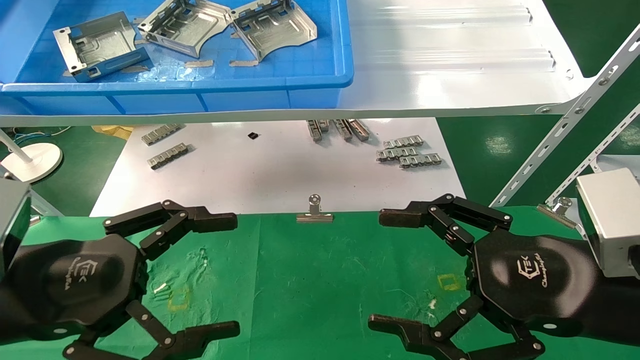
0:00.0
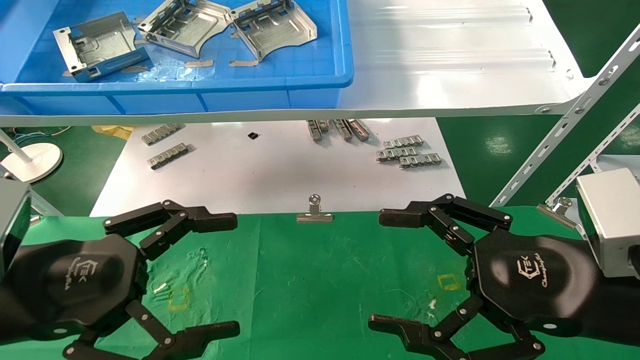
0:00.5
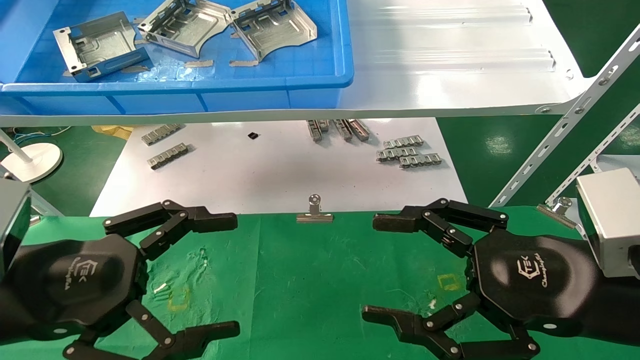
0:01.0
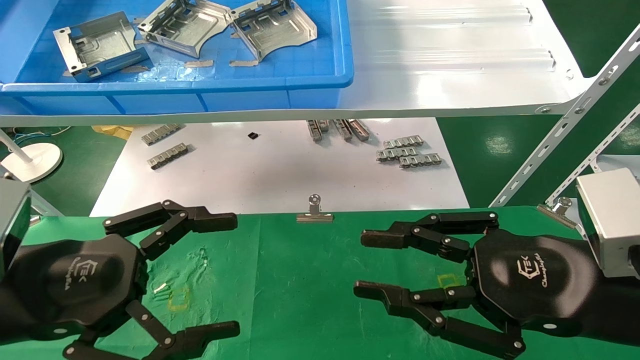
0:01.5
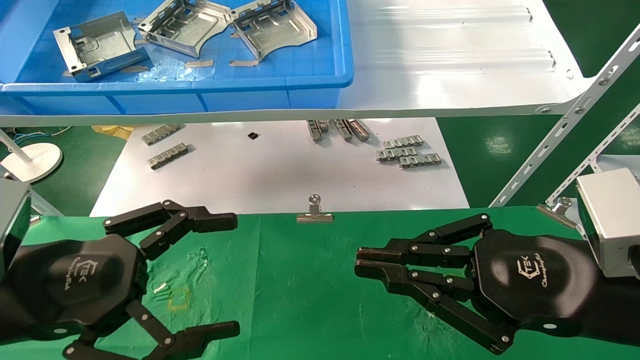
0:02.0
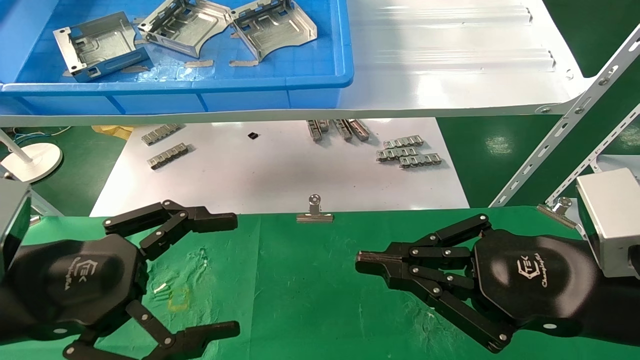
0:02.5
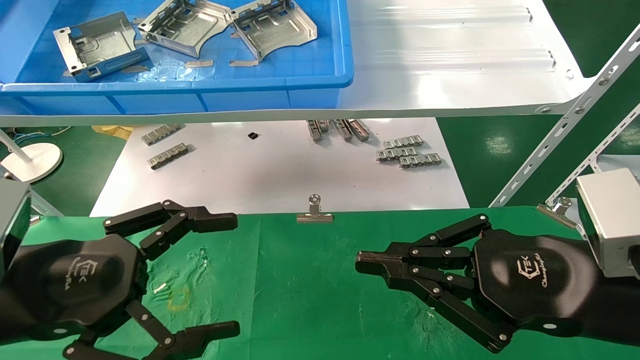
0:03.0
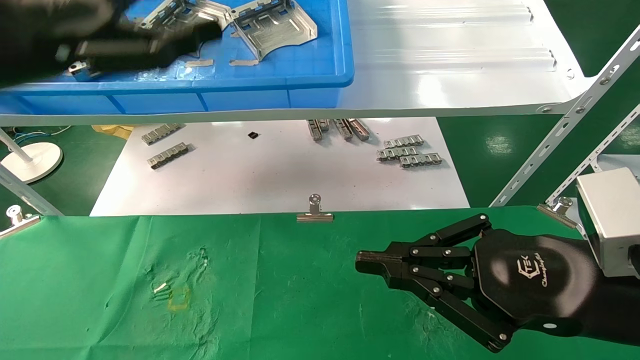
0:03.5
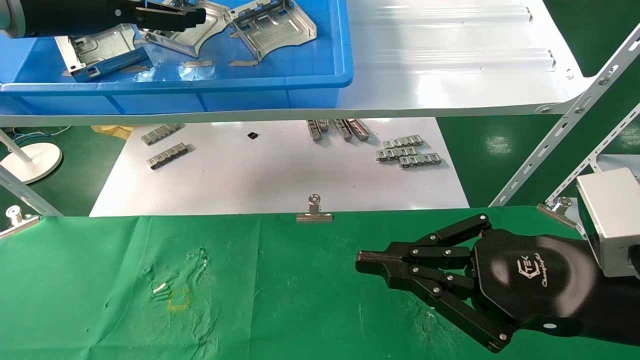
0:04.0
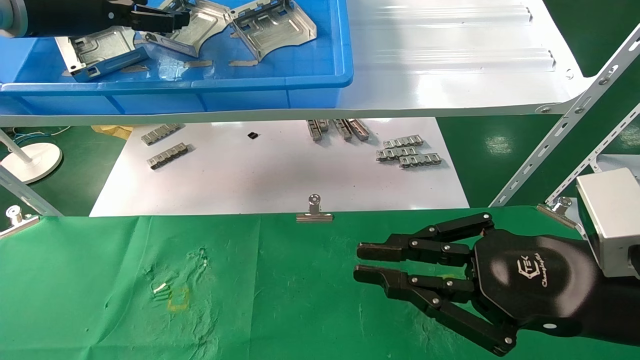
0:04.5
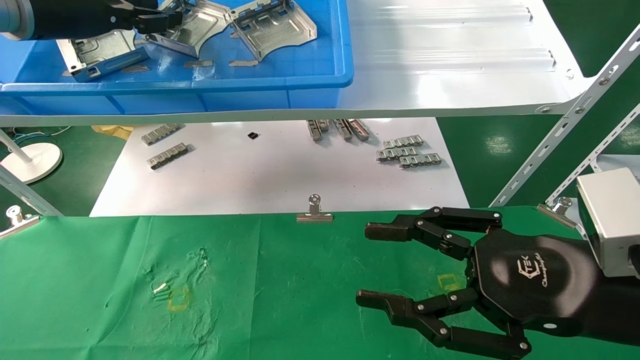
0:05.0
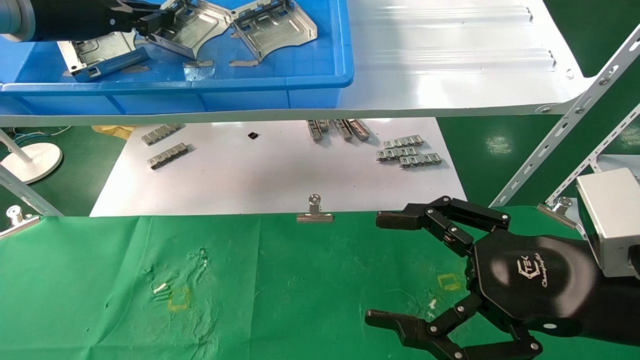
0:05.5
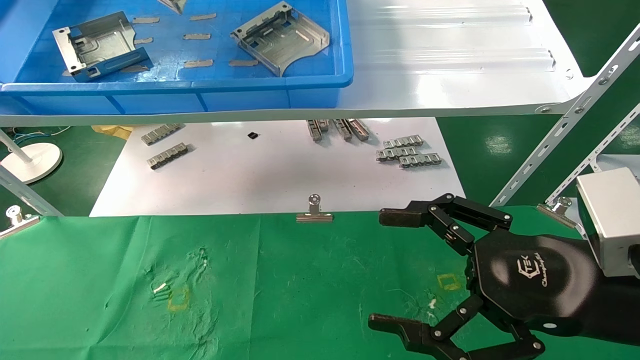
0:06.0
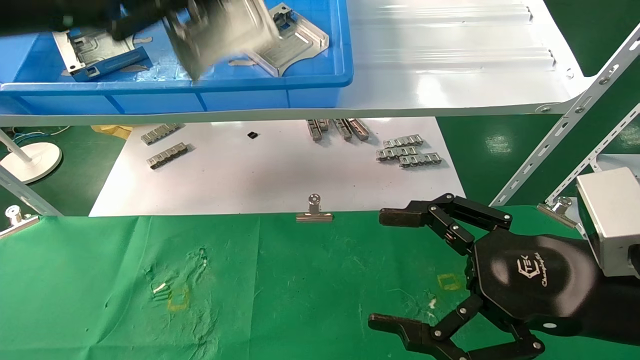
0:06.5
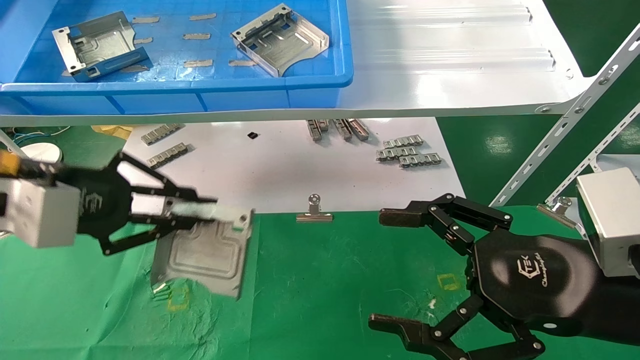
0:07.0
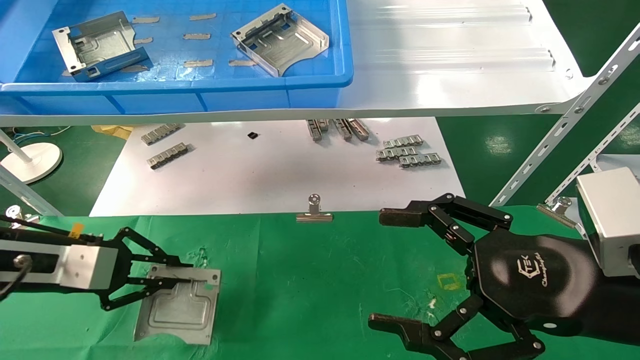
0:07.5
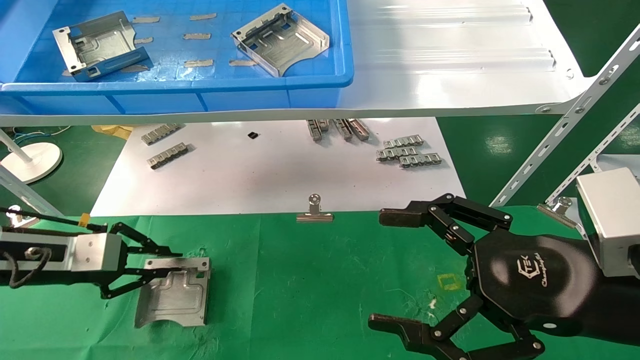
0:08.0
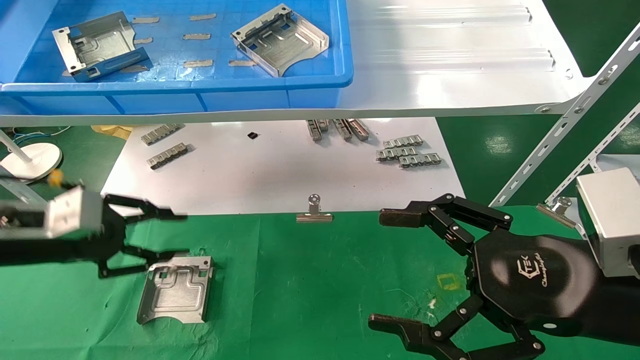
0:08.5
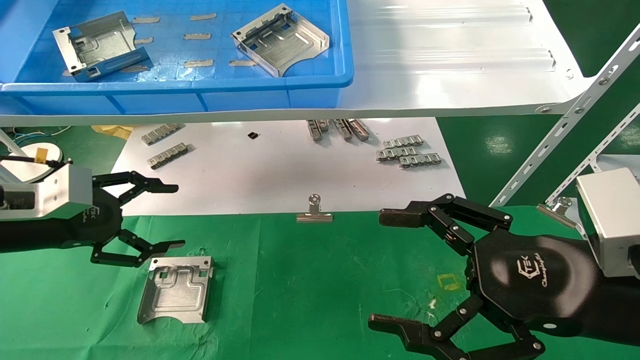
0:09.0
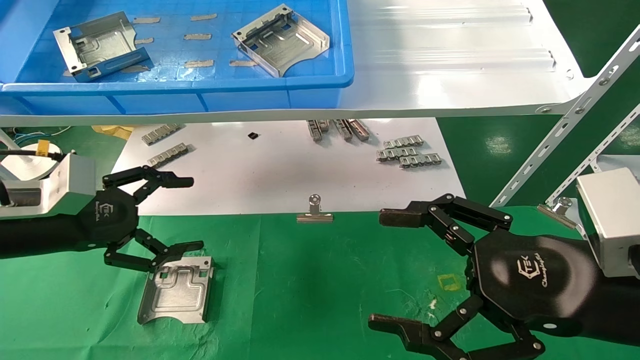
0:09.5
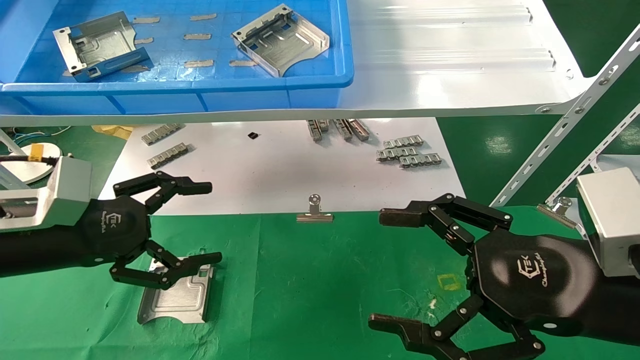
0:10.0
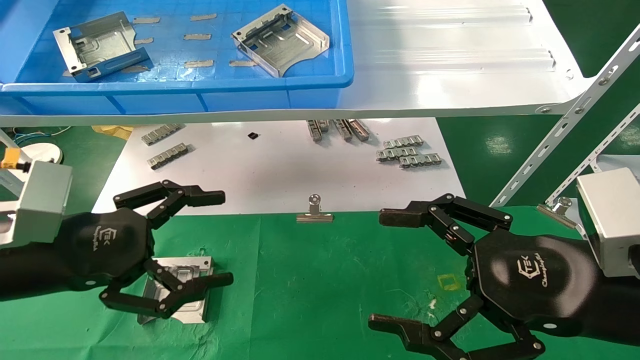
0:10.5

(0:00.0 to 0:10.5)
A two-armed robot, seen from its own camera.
Task of the whole recording: use the mechanical arm to pick up the parts and place them on the table.
Step, 0:01.0 - 0:05.5: Pick up the hard drive bracket from the feeding area.
Step, 0:06.0 - 0:08.5: Place the hard drive bracket into the box.
0:00.0 - 0:02.0: The right gripper closes its fingers.
0:02.0 - 0:04.0: The left gripper heads upward and forward, covering approximately 30 cm.
0:04.0 - 0:06.5: The left gripper moves backward, about 10 cm, and closes up. The right gripper opens.
0:06.5 - 0:08.5: The left gripper heads downward, covering approximately 20 cm.
0:08.5 - 0:10.5: The left gripper is displaced backward and to the right by approximately 10 cm, and opens its fingers.

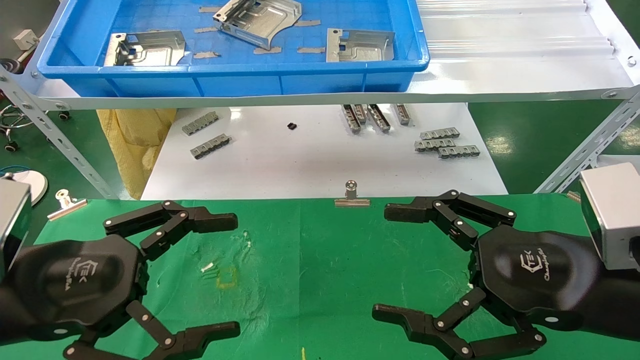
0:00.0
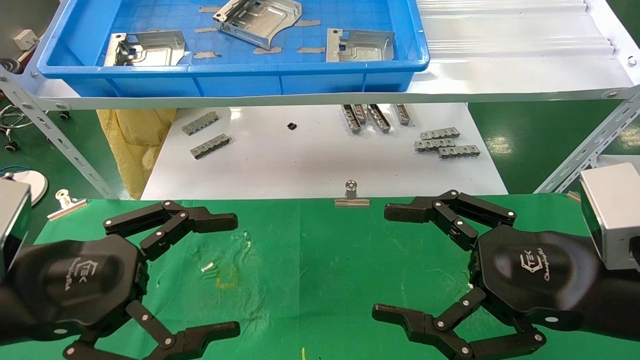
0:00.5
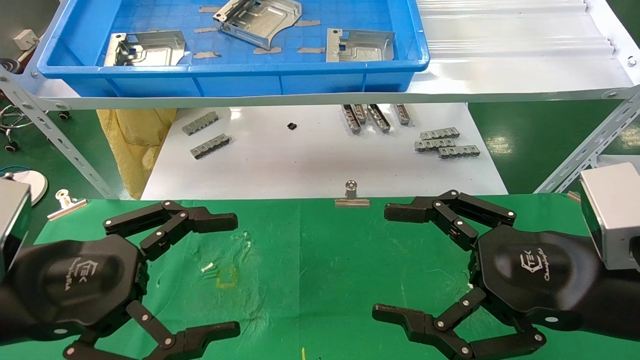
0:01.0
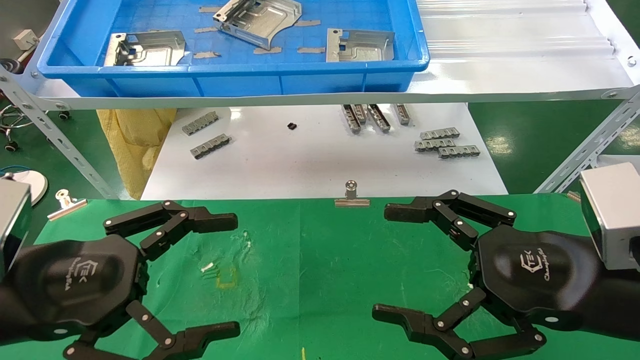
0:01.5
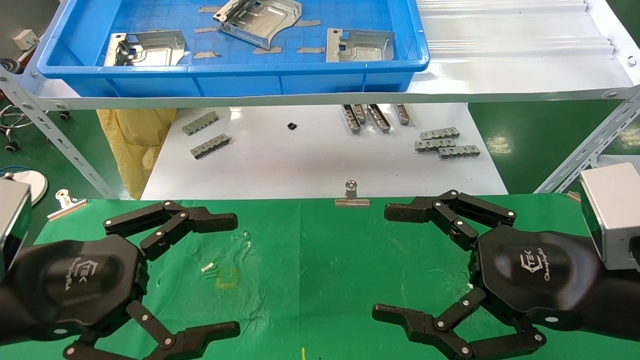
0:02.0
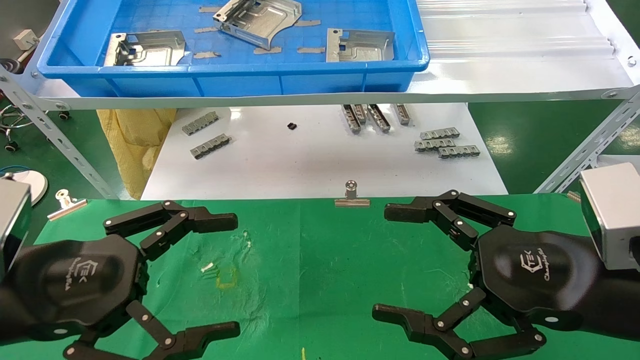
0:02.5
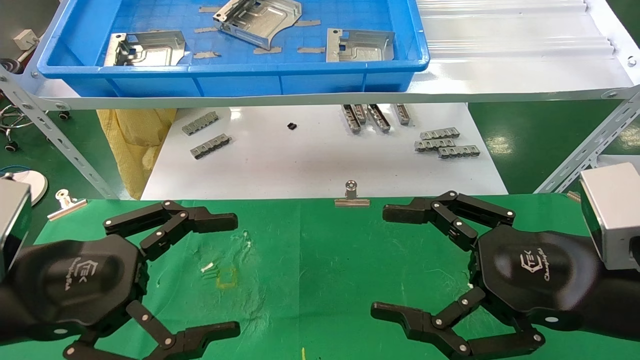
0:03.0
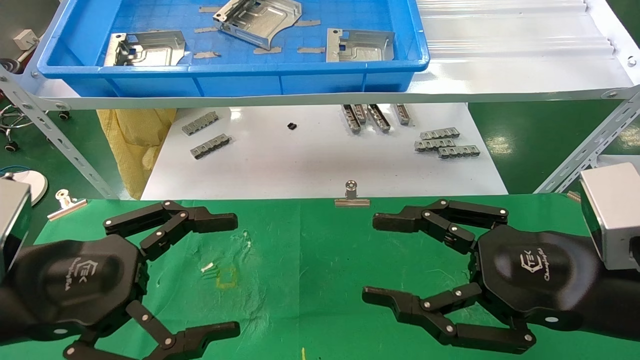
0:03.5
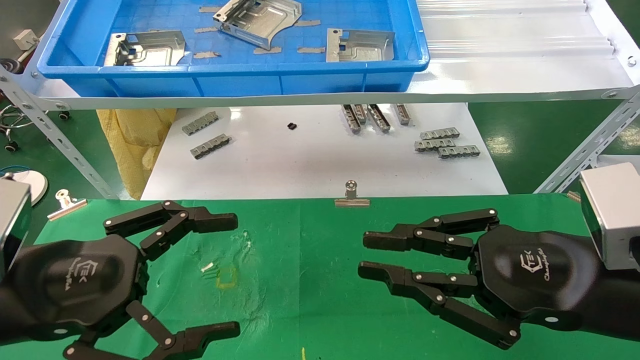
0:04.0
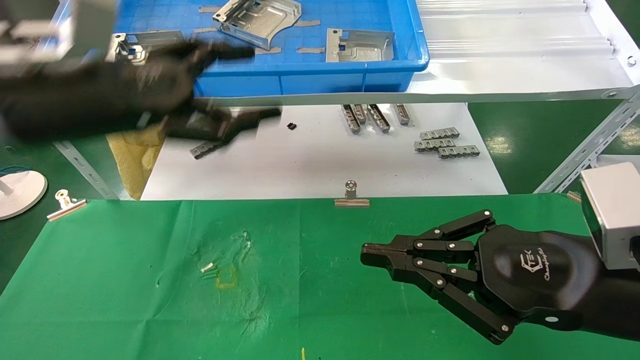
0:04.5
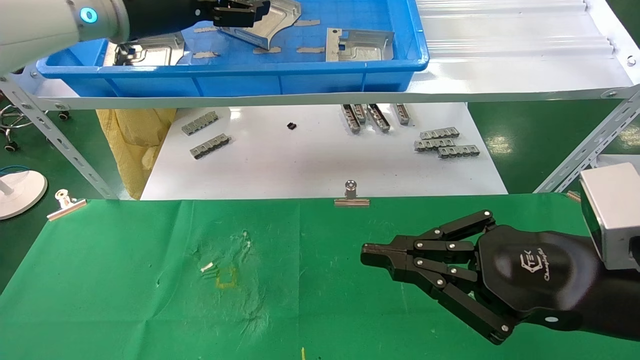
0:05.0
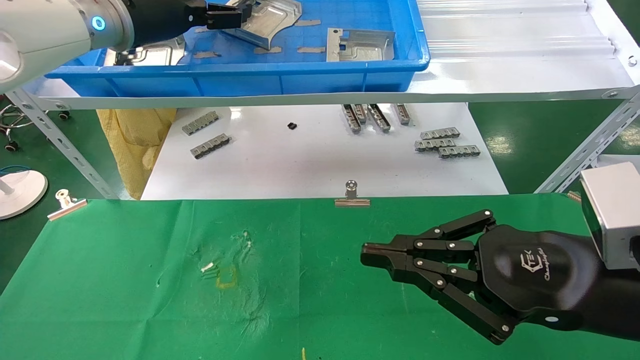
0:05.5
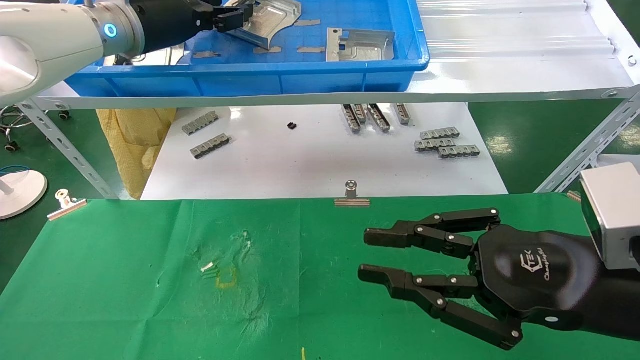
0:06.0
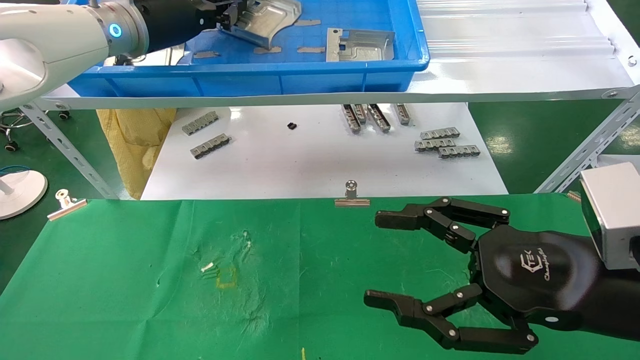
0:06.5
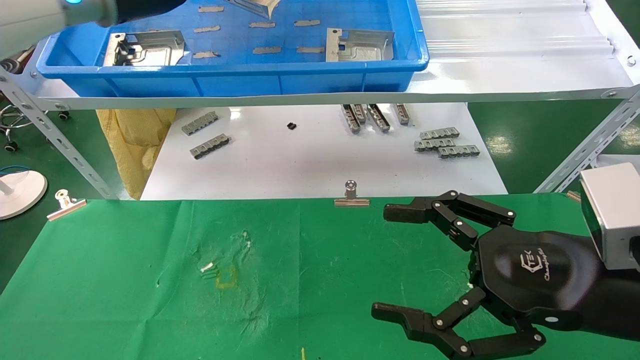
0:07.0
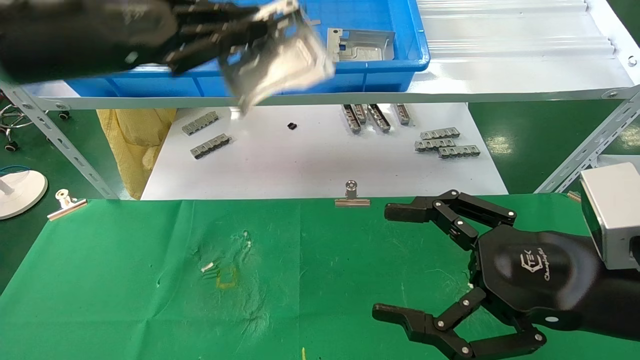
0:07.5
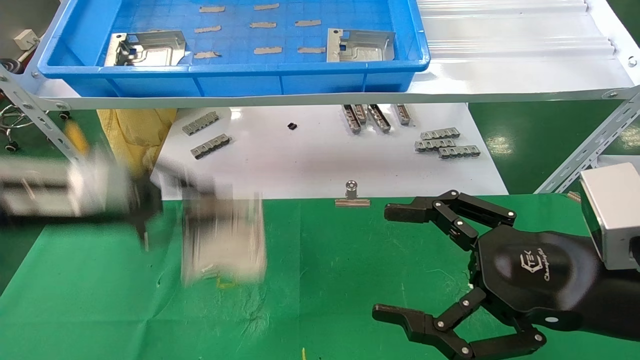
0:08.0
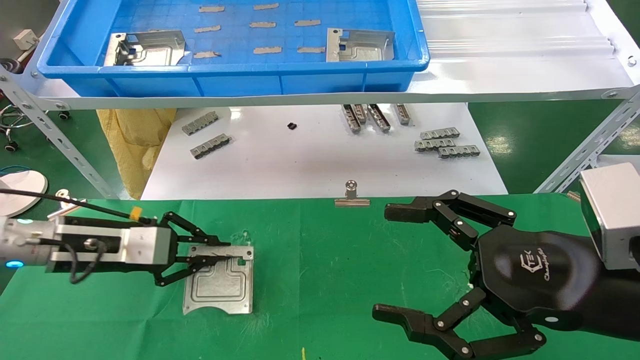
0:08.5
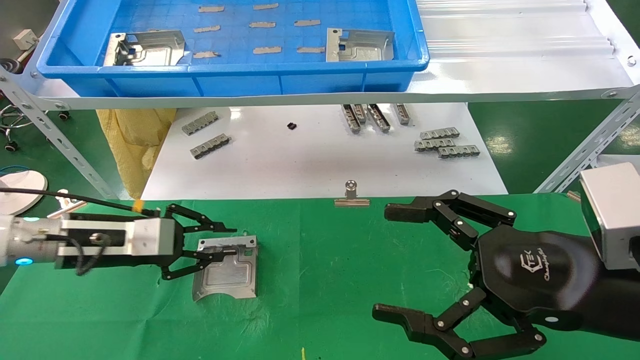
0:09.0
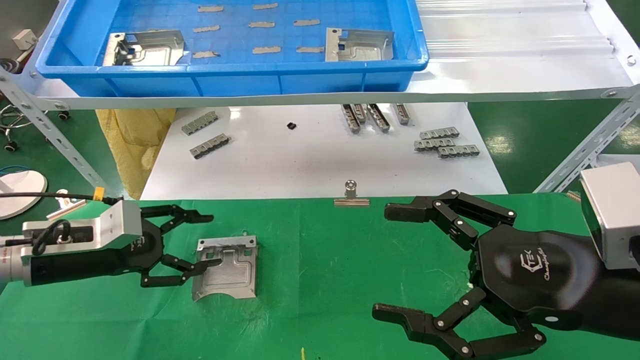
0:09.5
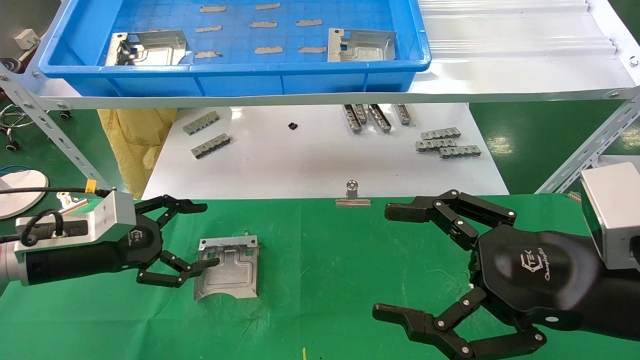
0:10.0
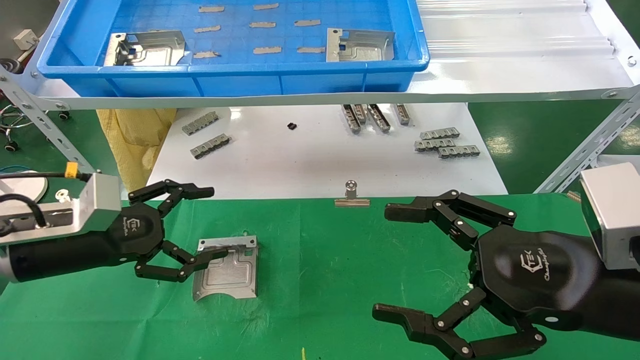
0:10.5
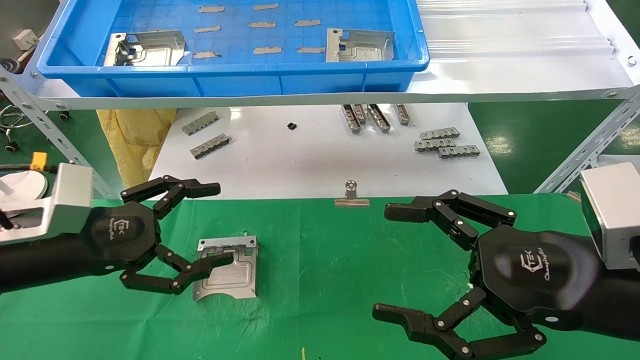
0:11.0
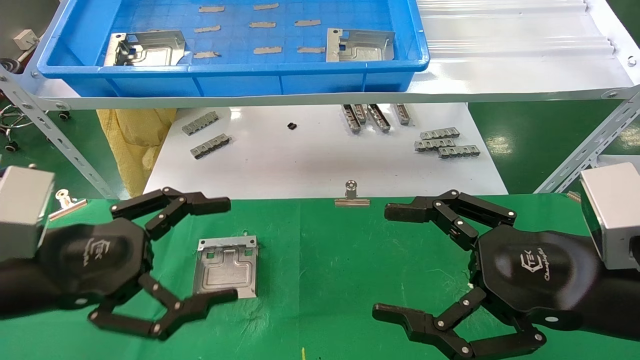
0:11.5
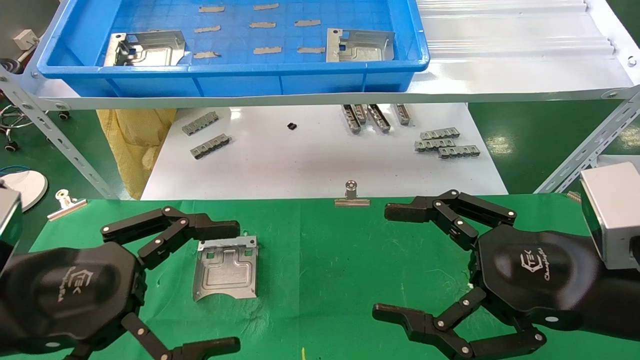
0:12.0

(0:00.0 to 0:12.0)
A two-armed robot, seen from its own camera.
Task of the whole recording: use the mechanical arm to pick up the parts and place them on the table.
Step, 0:04.5 - 0:06.5: Pick up the hard drive bracket from the feeding area.
Step, 0:07.0 - 0:09.0: Place the hard drive bracket into the box.
0:00.0 - 0:02.0: The two grippers keep their place.
0:02.0 - 0:04.0: The right gripper closes.
0:04.0 - 0:06.0: The left gripper heads forward and upward, covering some 30 cm, and closes its fingers.
0:06.0 - 0:08.0: The right gripper opens up, while the left gripper is displaced downward, backward and to the left by roughly 25 cm, and closes.
0:08.0 - 0:10.0: The left gripper is displaced downward by approximately 10 cm, and opens.
0:10.0 - 0:12.0: The left gripper travels backward by roughly 15 cm.
